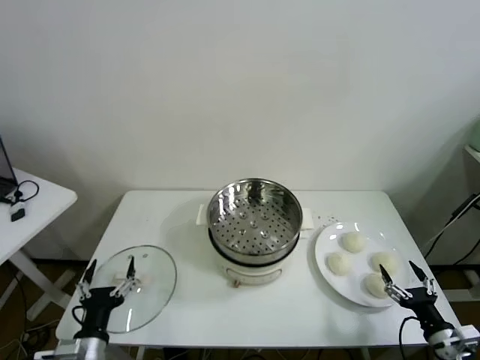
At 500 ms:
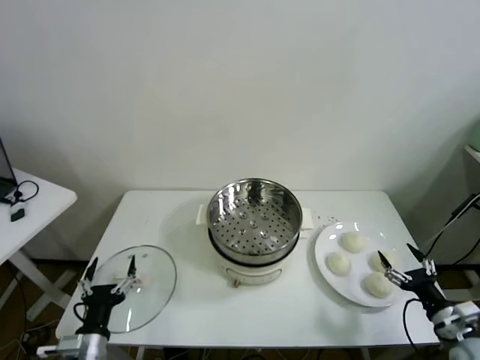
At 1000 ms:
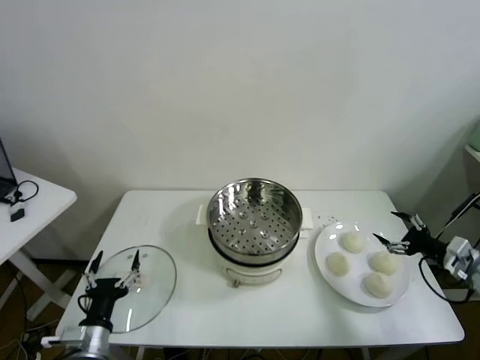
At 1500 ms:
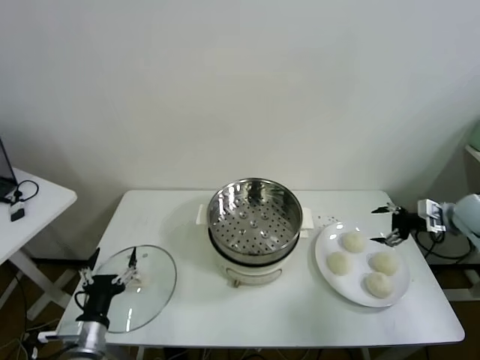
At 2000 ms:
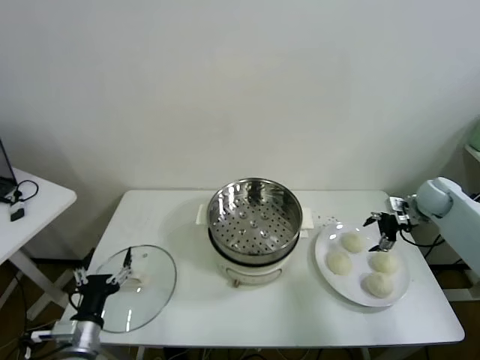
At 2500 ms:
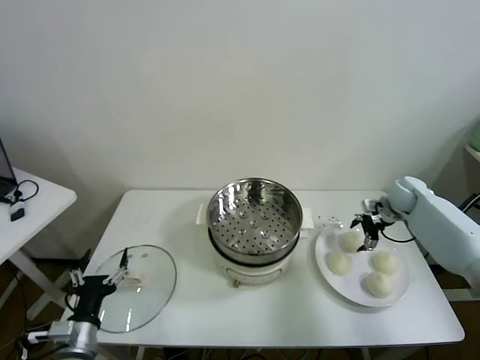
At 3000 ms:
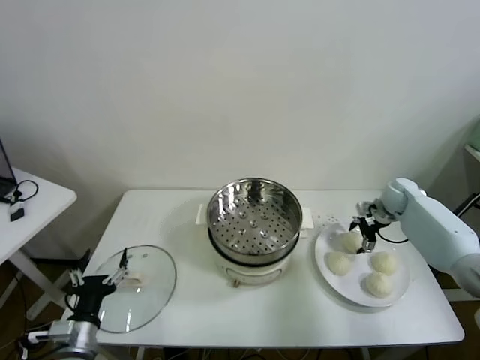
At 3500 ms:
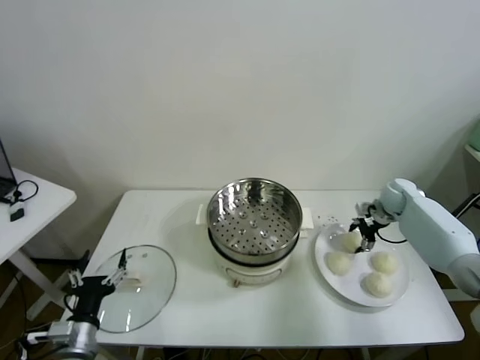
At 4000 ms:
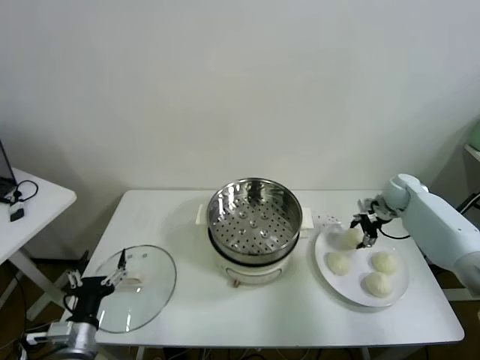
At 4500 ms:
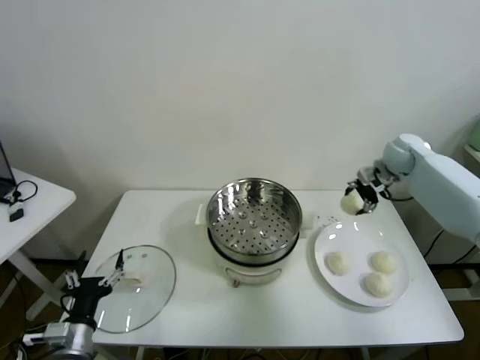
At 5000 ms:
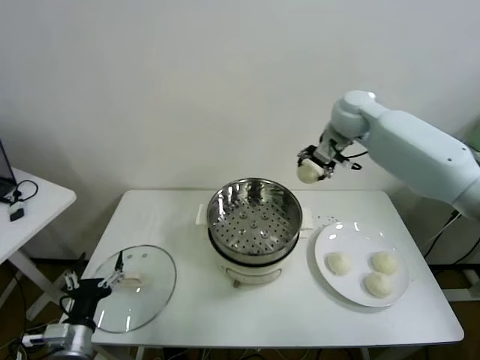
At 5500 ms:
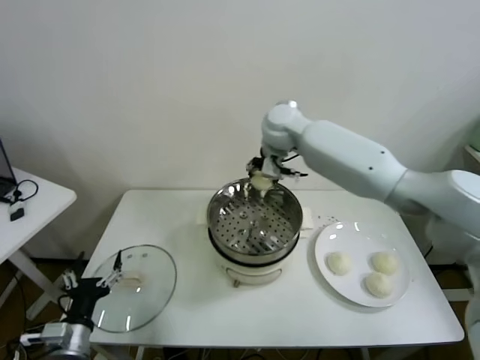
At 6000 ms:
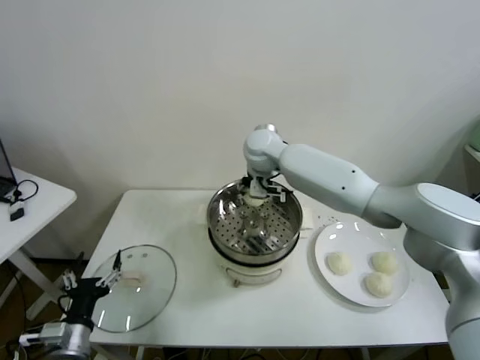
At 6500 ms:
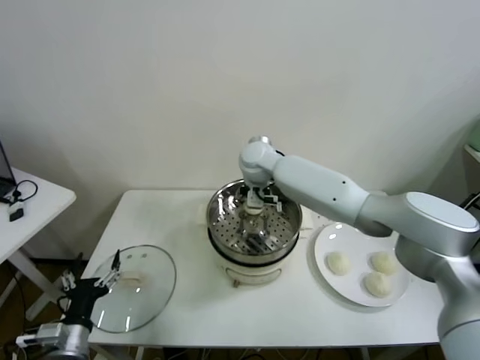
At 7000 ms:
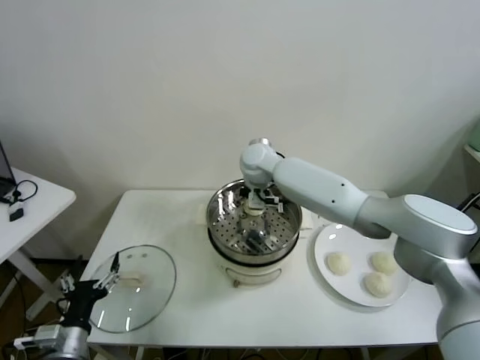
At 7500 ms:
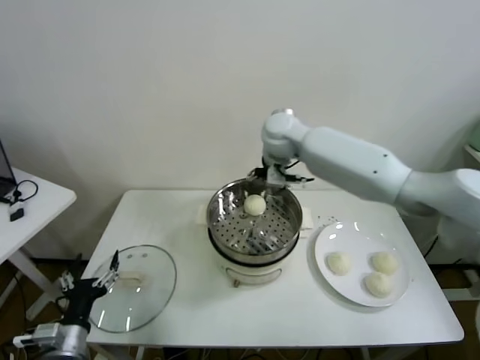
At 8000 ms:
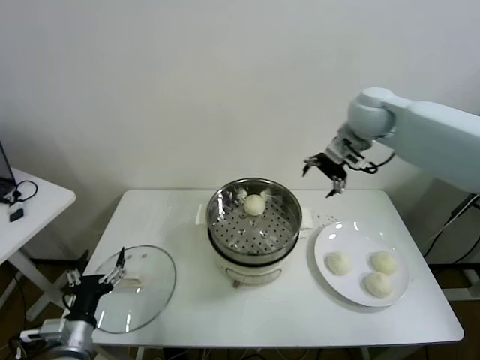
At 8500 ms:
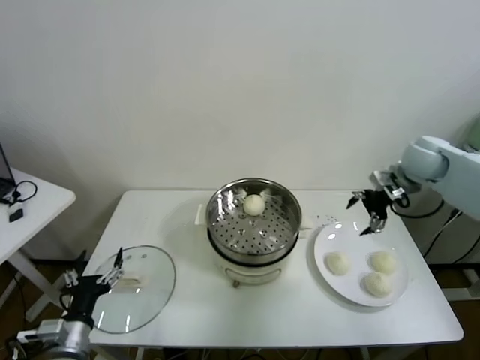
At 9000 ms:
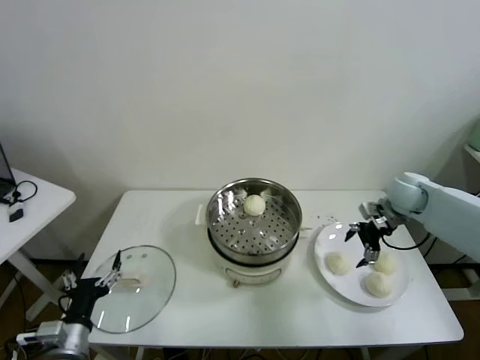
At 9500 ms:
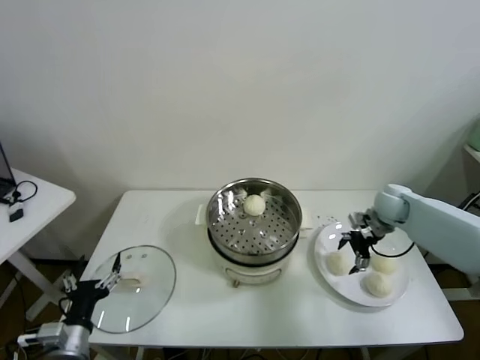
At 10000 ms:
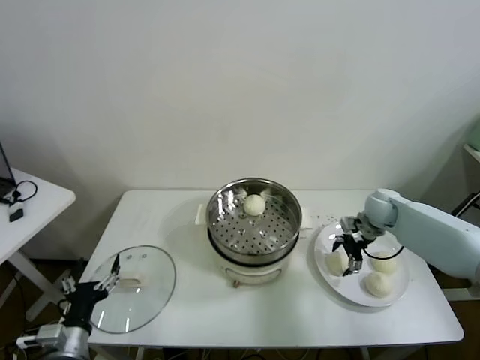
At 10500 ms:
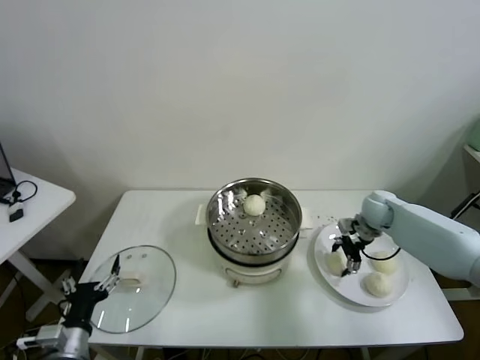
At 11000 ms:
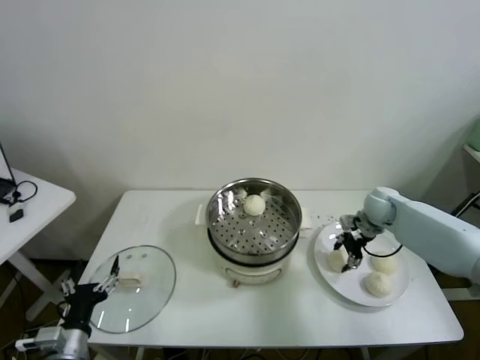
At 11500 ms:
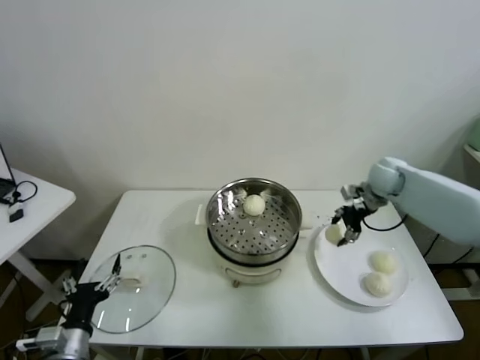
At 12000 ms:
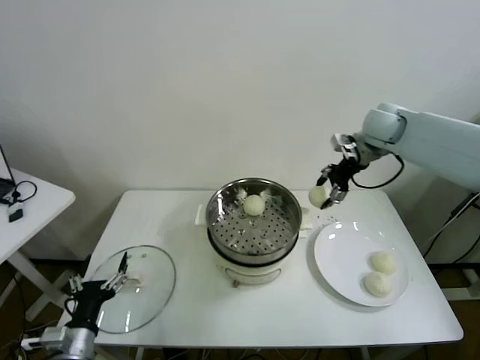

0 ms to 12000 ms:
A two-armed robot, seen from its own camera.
Task of the whole recording: take steamed baozi put them in steamer.
Step, 0 ms to 3500 ms: Grasp the baozi in the plate with right gripper.
Step, 4000 ms to 7000 ms: Place the baozi on the steamer with right gripper.
Step, 7500 ms to 10500 ms: Grasp the baozi in the plate with right gripper.
2000 ms to 4000 ms: The right gripper changes place by approximately 5 cm, and closes.
4000 ms to 6000 ms: The right gripper goes approximately 40 cm to the left.
6000 ms to 8000 ms: The right gripper shifts about 25 cm to the right and upward, and opens its fingers.
8000 ms to 10000 ms: The right gripper is displaced downward by approximately 25 cm.
10000 ms to 12000 ms: The right gripper moves upward, about 25 cm, and closes its fingers.

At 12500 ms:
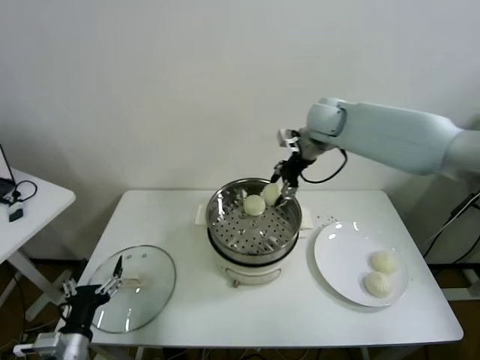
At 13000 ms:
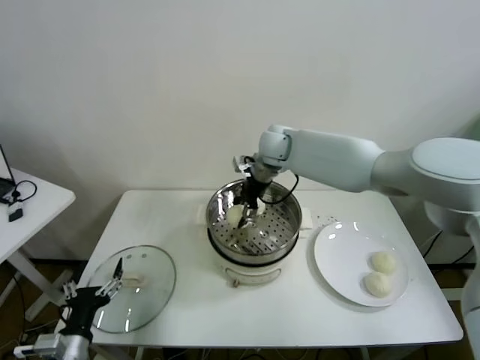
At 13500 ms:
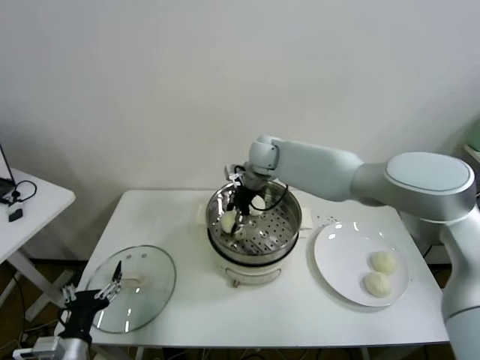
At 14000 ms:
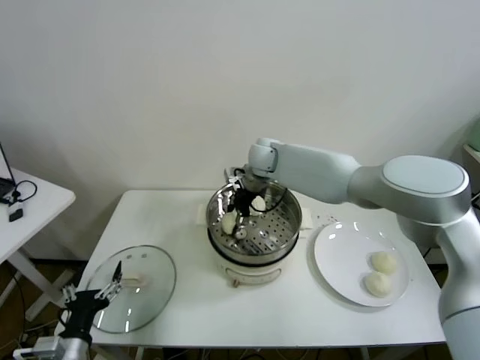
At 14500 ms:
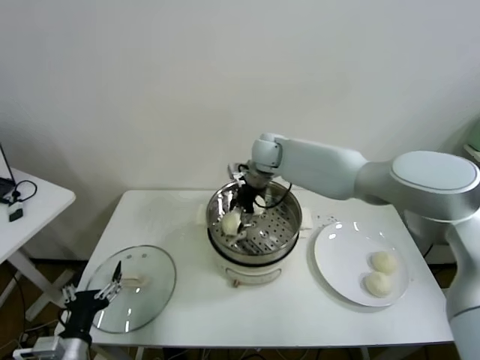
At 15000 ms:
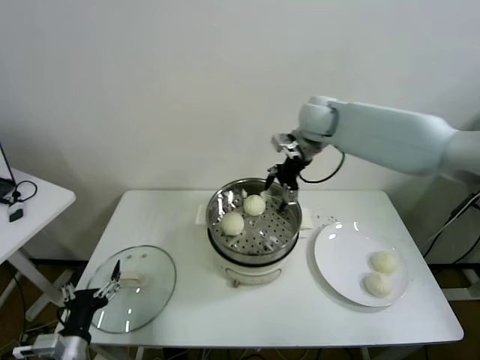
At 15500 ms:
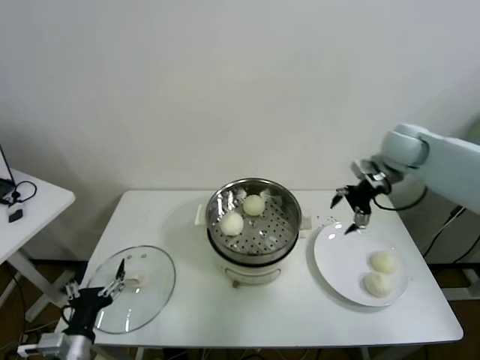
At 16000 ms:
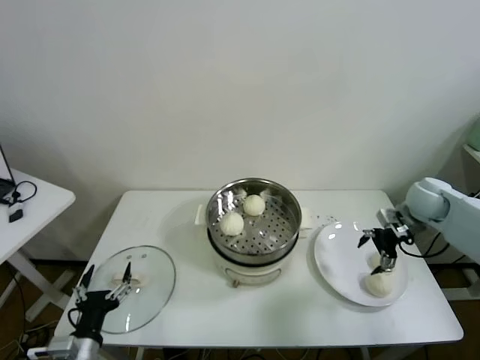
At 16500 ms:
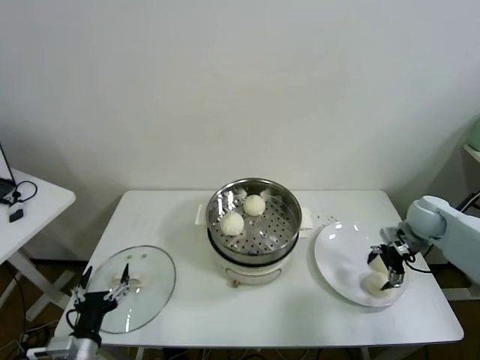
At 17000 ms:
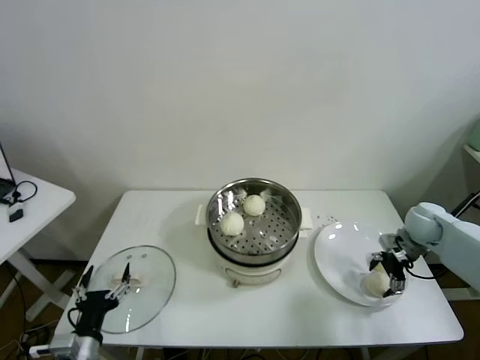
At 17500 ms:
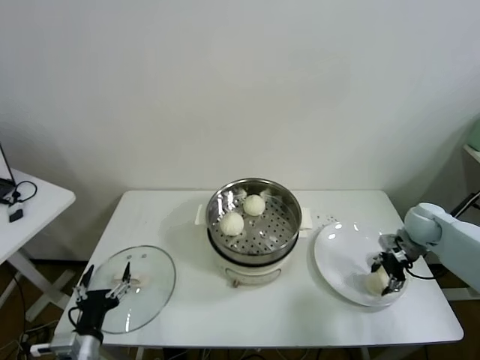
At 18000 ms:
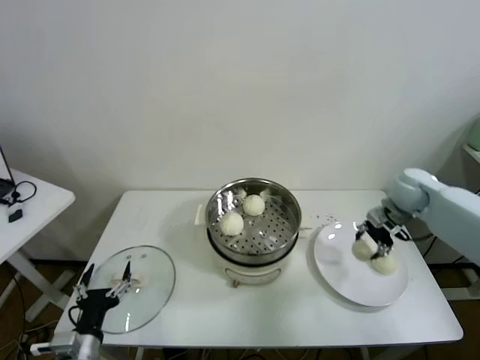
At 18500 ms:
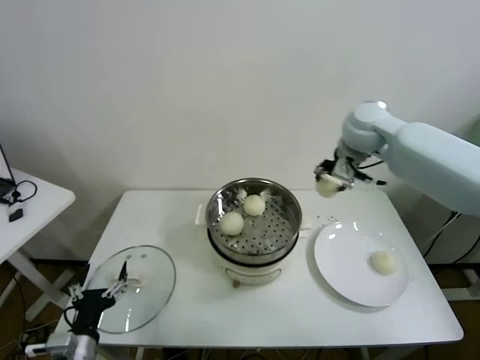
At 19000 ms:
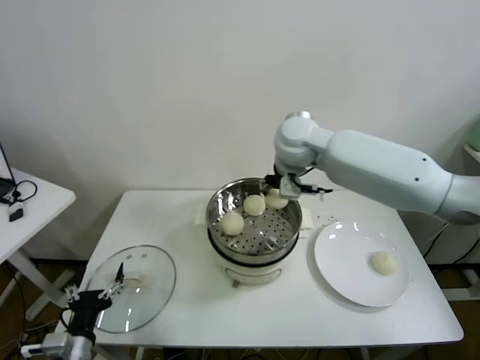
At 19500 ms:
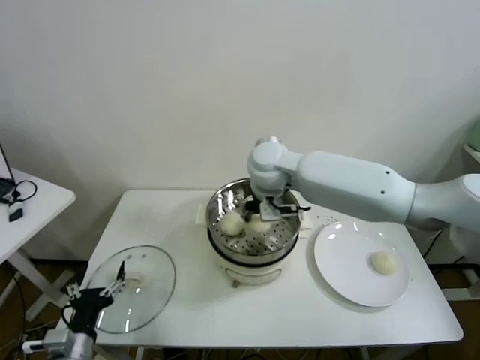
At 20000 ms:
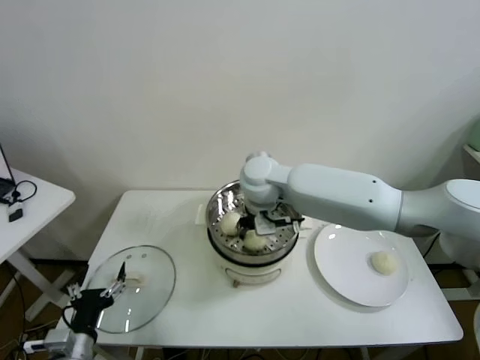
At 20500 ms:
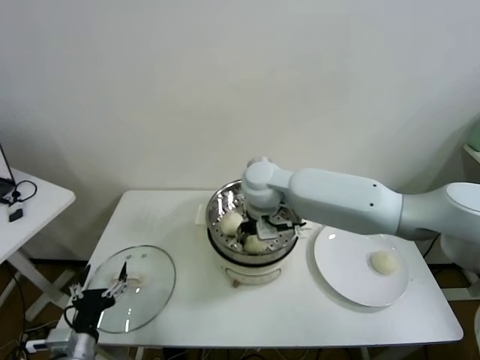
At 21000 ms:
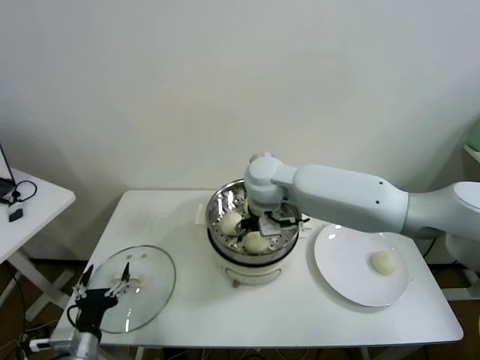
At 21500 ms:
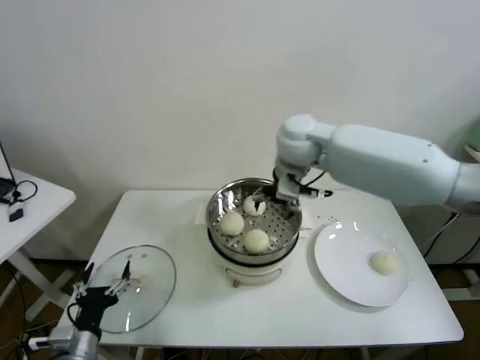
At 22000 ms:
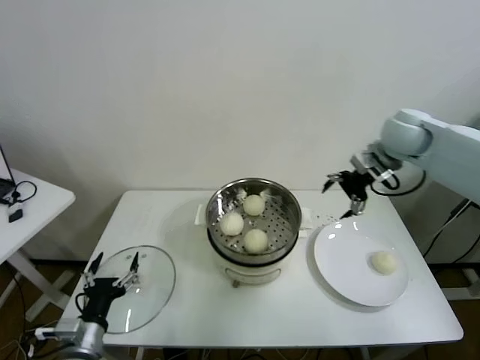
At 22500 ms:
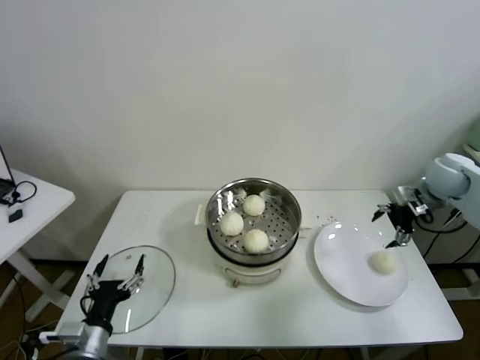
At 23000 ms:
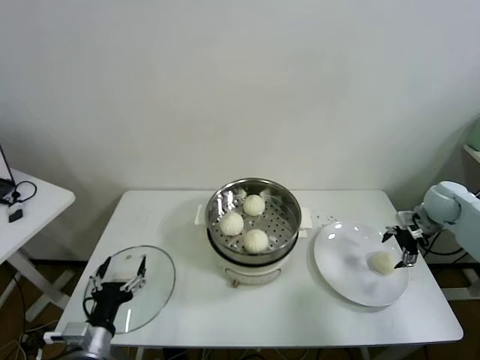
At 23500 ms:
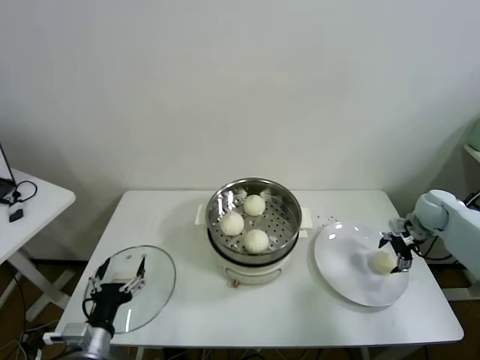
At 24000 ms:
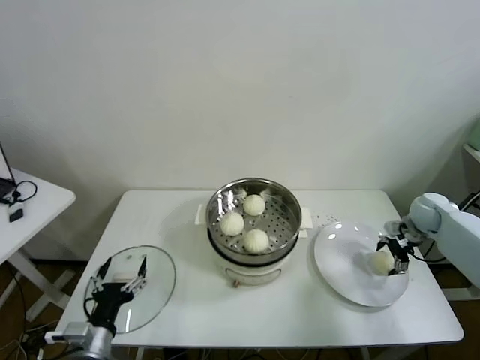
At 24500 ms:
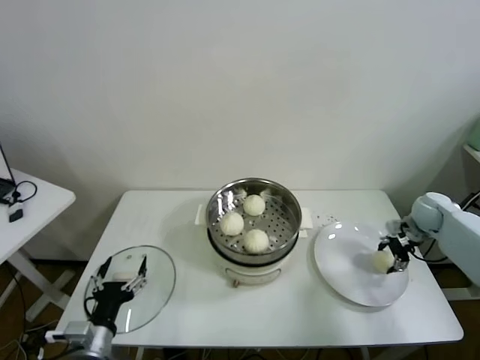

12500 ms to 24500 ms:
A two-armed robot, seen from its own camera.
Task of the whole recording: take steamed baozi put them in steamer.
Step, 12500 ms to 14500 ms: Place the baozi on the steamer with right gripper.
Step, 15000 ms to 17000 ms: Grasp the baozi in the plate with right gripper.
Step, 18000 ms to 21000 ms: Place the baozi on the steamer with right gripper.
Step, 21500 ms to 24000 ms: Grasp the baozi in the plate with right gripper.
12500 ms to 14500 ms: The right gripper heads to the left and downward, covering approximately 15 cm, and opens.
14500 ms to 16500 ms: The right gripper shifts about 40 cm to the right.
16500 ms to 18500 ms: The right gripper heads upward and to the left, covering some 30 cm, and closes up.
18500 ms to 20500 ms: The right gripper moves to the left and downward, about 25 cm.
20500 ms to 22500 ms: The right gripper travels to the right by roughly 40 cm, and opens up.
22500 ms to 24500 ms: The right gripper goes approximately 15 cm downward, and closes up.

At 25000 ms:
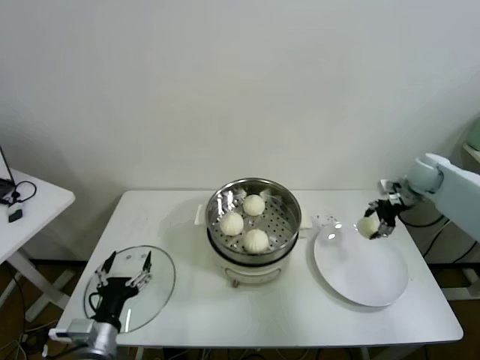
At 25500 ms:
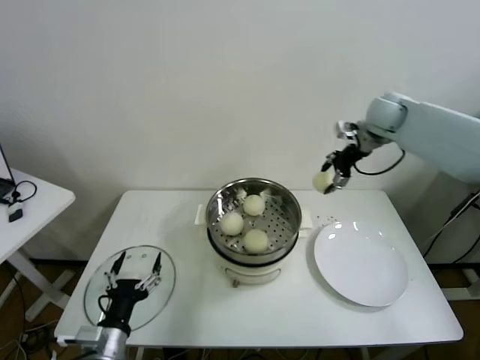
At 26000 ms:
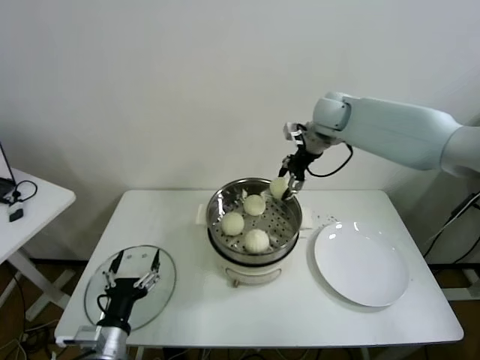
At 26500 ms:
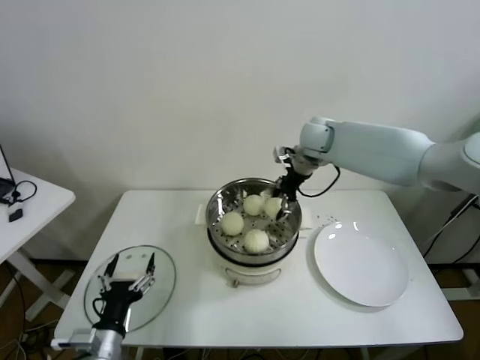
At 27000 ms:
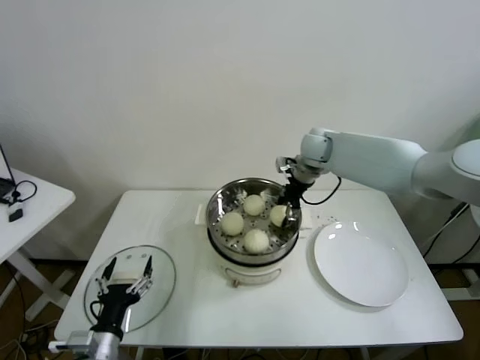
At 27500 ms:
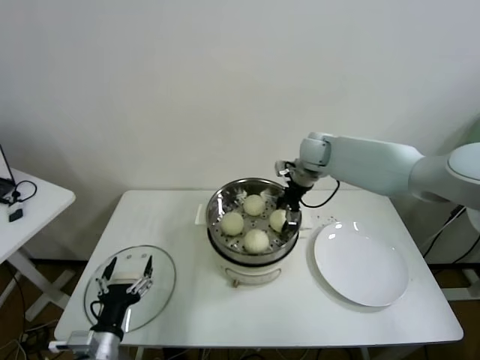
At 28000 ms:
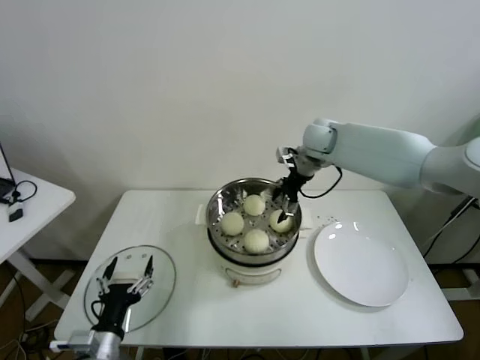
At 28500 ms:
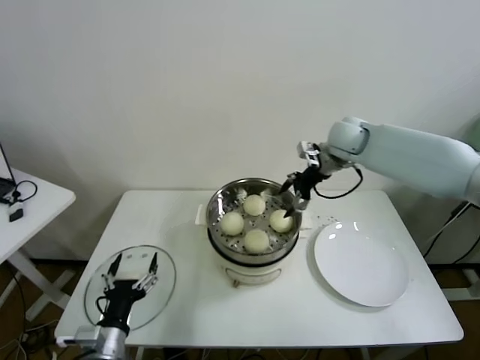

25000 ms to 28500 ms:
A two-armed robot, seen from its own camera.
Task of the whole recording: take steamed baozi put them in steamer.
Step, 25000 ms to 28000 ms: Place the baozi on the steamer with right gripper.
25000 ms to 27000 ms: The right gripper is displaced to the left by about 25 cm.
27000 ms to 28500 ms: The right gripper shifts by roughly 5 cm, and opens its fingers.
